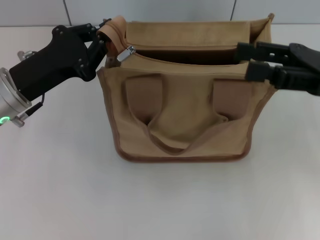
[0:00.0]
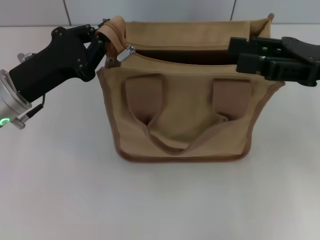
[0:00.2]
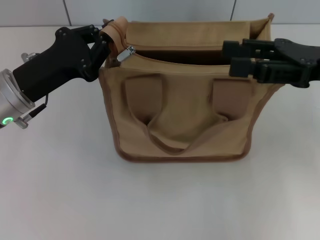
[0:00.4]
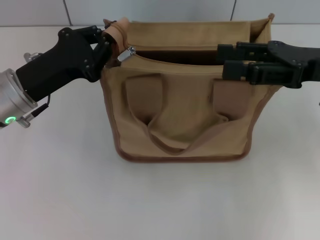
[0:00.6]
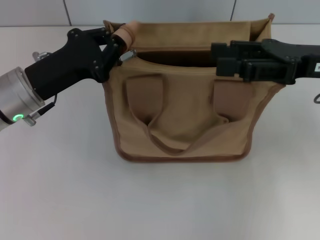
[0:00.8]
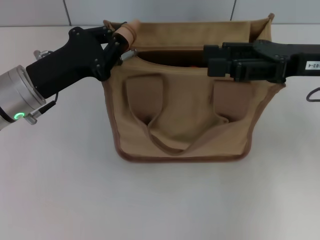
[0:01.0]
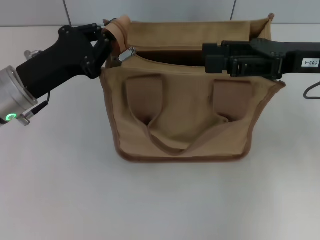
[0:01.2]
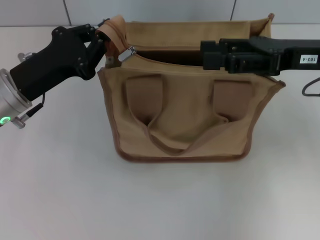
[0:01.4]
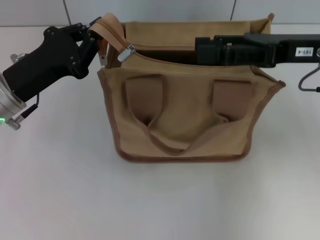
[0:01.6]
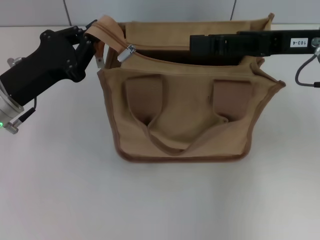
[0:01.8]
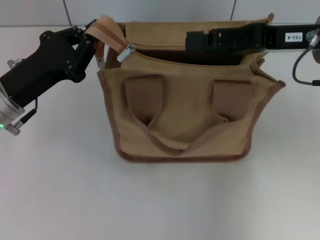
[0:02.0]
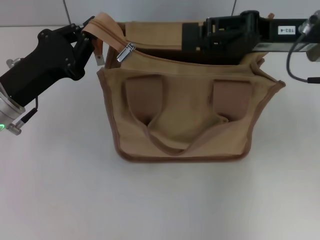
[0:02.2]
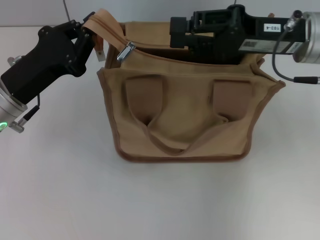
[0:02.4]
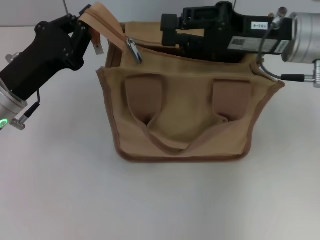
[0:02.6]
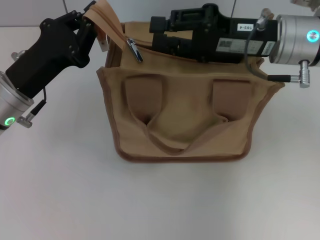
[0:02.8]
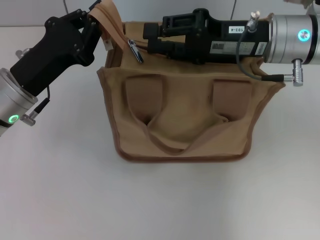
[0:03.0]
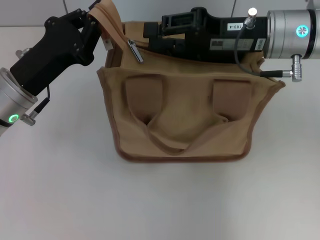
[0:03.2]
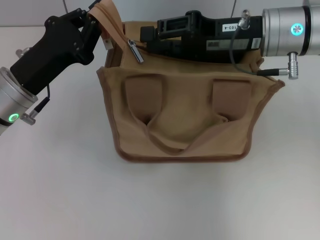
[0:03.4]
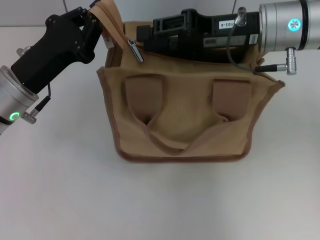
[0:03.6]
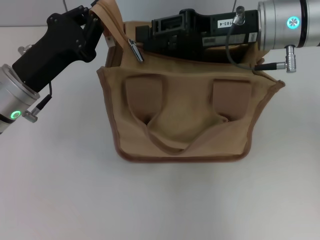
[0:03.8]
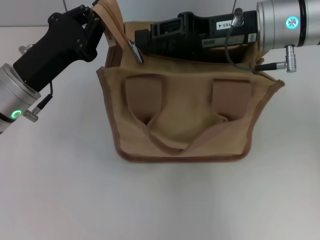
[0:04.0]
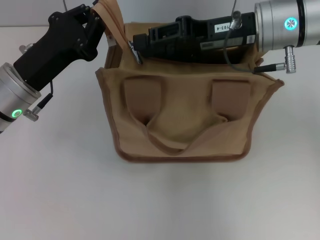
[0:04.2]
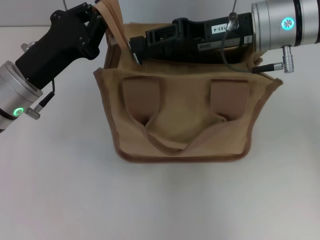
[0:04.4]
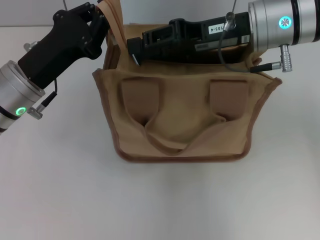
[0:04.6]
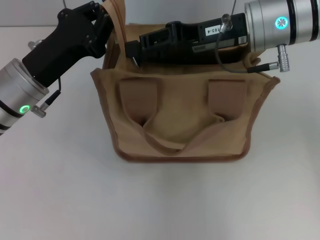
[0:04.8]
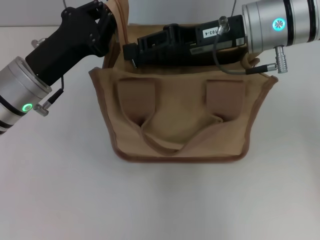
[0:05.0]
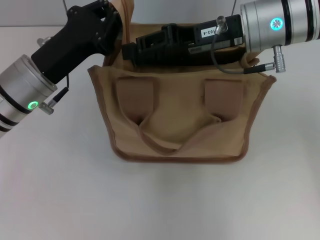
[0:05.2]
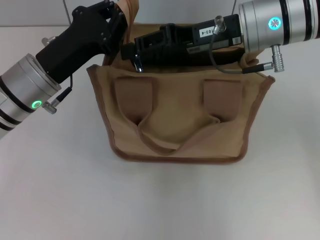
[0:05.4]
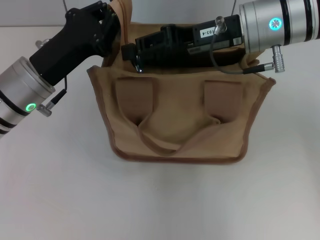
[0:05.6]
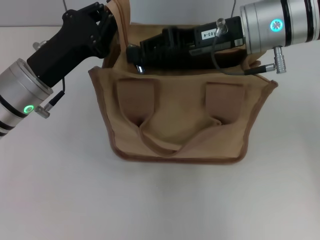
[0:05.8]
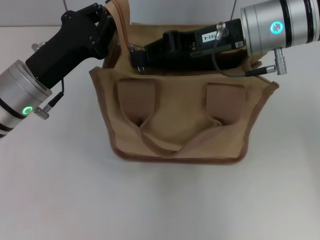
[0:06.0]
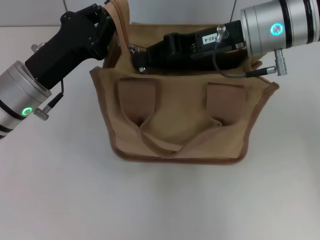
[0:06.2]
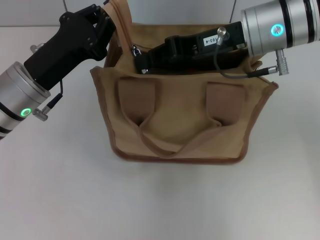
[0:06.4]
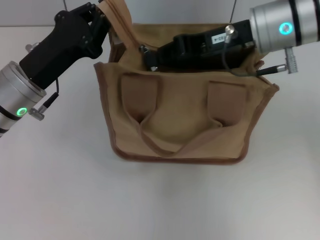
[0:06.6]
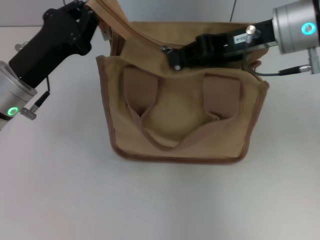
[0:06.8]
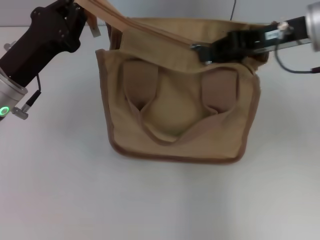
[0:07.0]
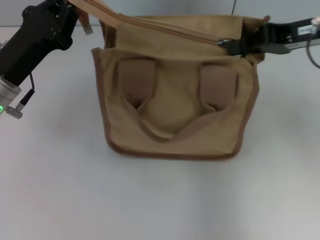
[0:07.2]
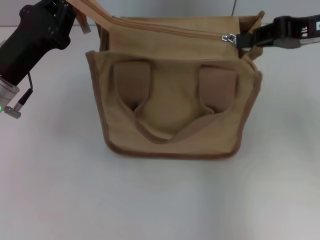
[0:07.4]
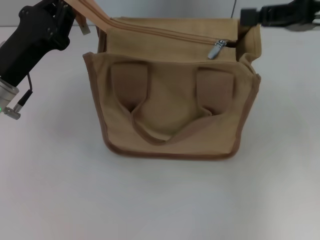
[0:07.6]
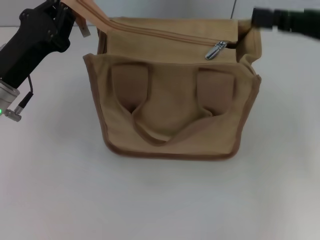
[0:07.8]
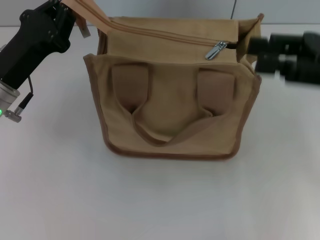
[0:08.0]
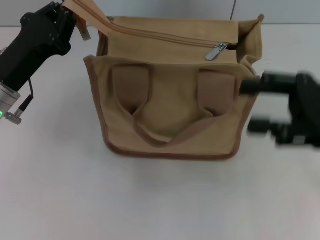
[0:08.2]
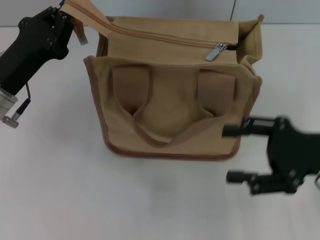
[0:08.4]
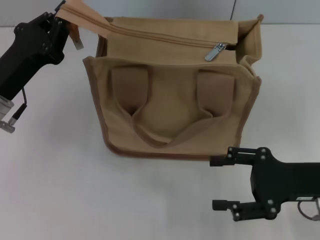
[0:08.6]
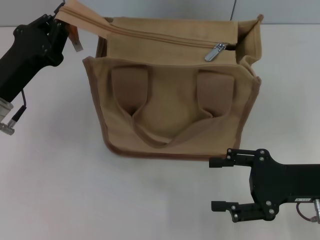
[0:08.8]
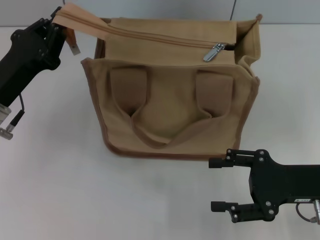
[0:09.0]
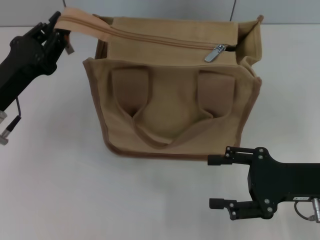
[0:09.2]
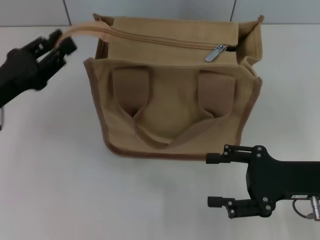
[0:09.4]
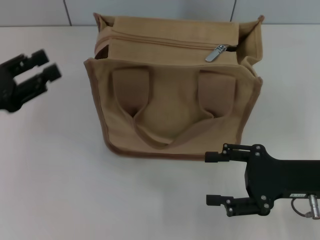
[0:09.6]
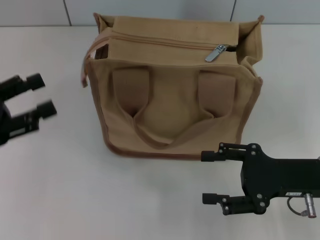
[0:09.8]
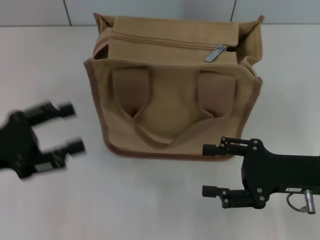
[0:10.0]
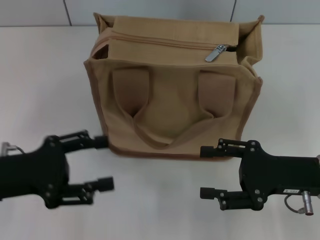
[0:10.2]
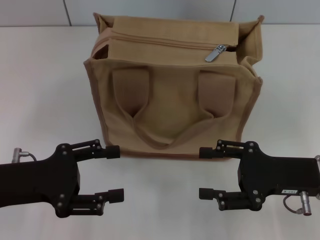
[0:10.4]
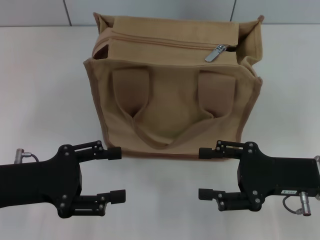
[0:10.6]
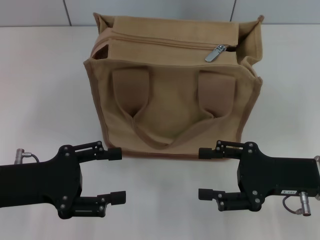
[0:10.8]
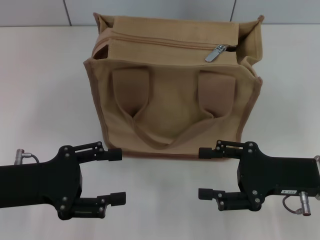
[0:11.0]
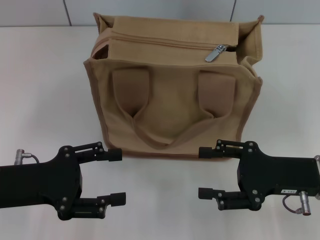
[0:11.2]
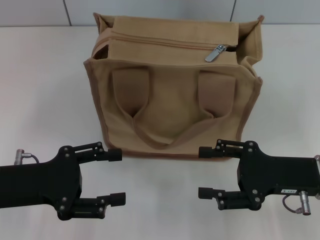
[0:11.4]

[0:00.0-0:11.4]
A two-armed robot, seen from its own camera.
Step, 0:00.0 to 0:07.4: Pull up the zipper with your right hand.
Step, 0:07.6 to 0:09.4: Grab the zipper with your left hand.
0:00.0 to 0:01.4: There are only small adjustments of the grippers.
0:01.4 to 0:02.8: The right gripper moves to the left, roughly 5 cm, and closes its fingers.
0:02.8 to 0:04.2: There are only small adjustments of the grippers.
0:04.2 to 0:05.6: There are only small adjustments of the grippers.
0:05.6 to 0:07.2: The right gripper goes some 10 cm to the right, and closes.
0:07.2 to 0:08.6: The right gripper shifts approximately 20 cm downward and backward, and opens up.
0:08.6 to 0:10.0: The left gripper travels backward and to the left by about 10 cm, and opens its fingers.
0:10.0 to 0:11.4: There are only small adjustments of the grippers.
